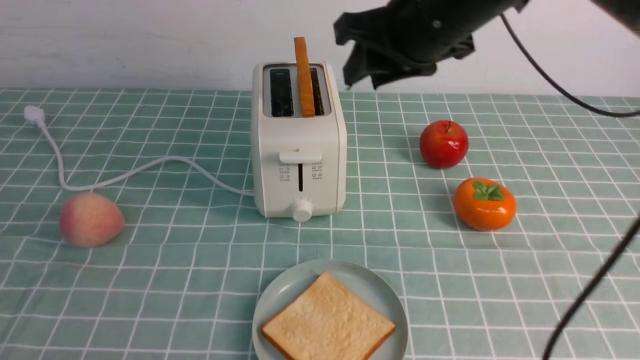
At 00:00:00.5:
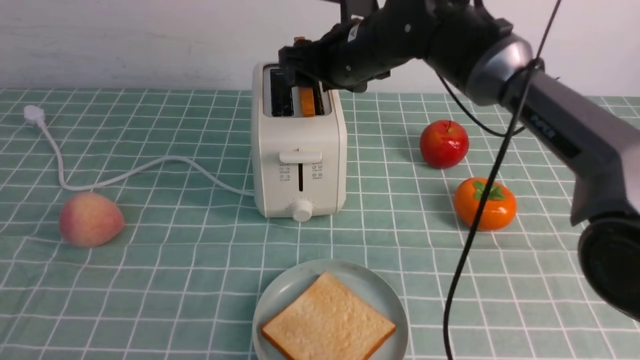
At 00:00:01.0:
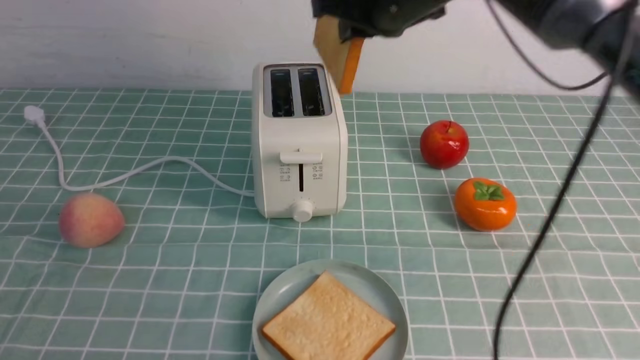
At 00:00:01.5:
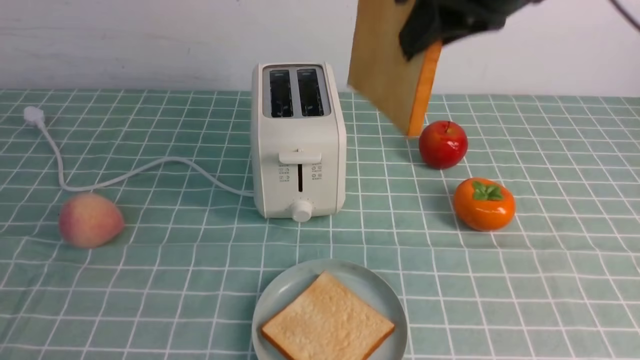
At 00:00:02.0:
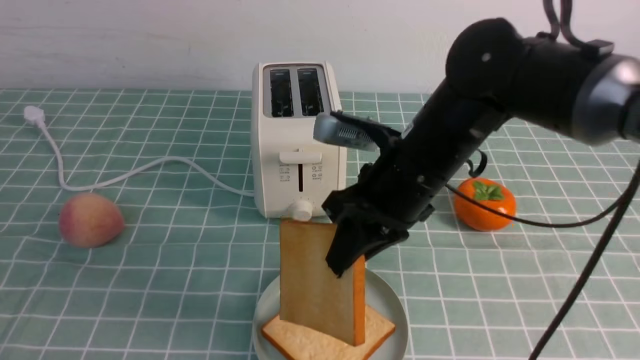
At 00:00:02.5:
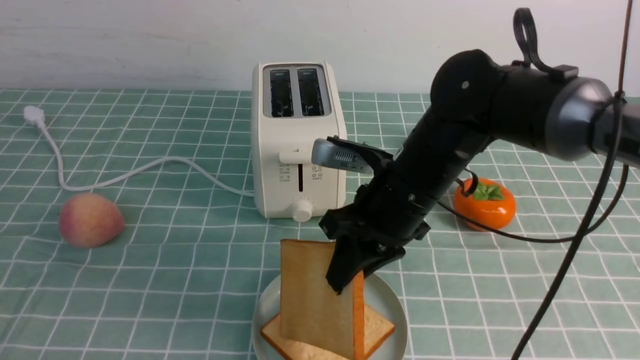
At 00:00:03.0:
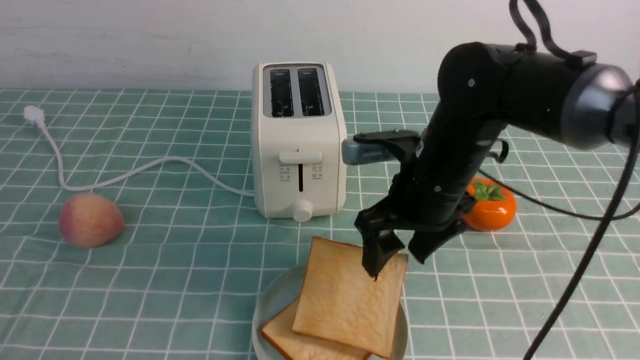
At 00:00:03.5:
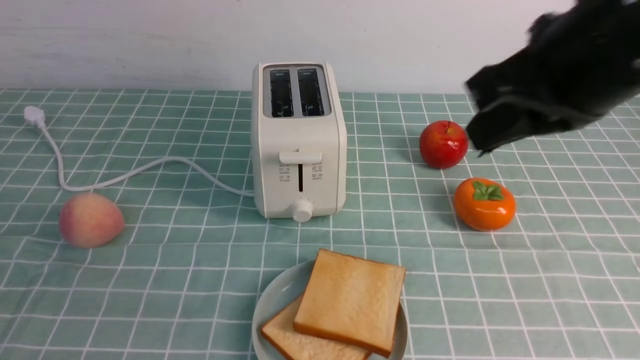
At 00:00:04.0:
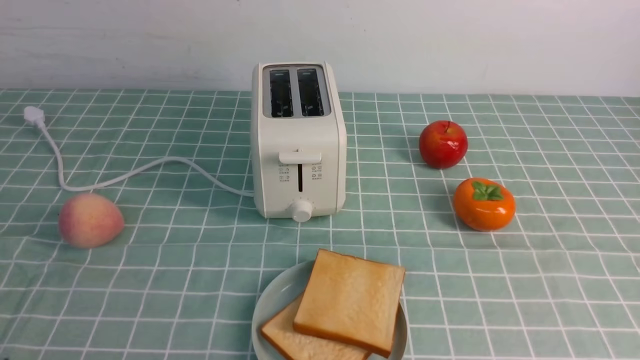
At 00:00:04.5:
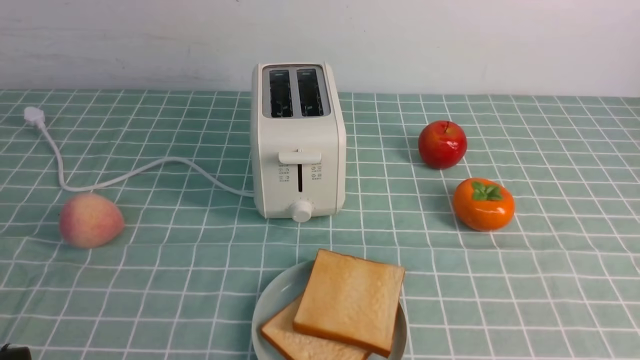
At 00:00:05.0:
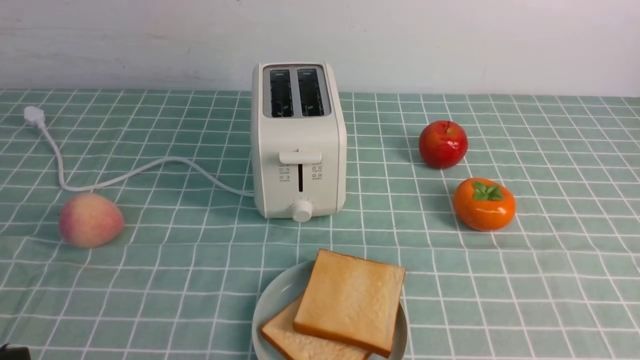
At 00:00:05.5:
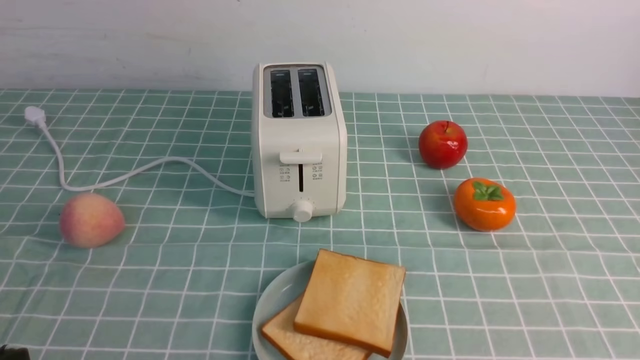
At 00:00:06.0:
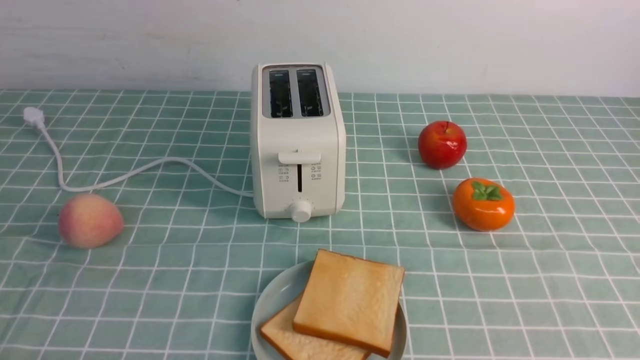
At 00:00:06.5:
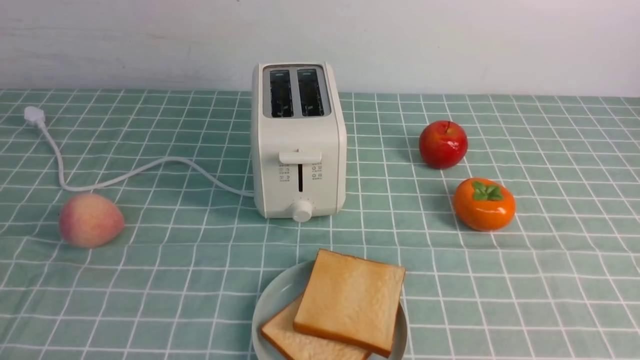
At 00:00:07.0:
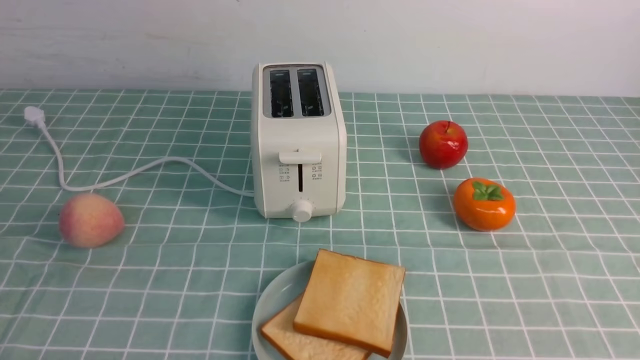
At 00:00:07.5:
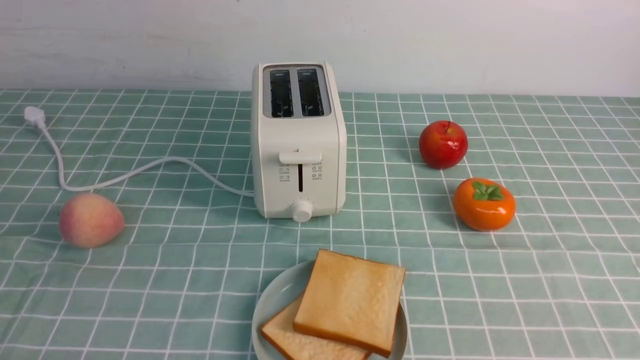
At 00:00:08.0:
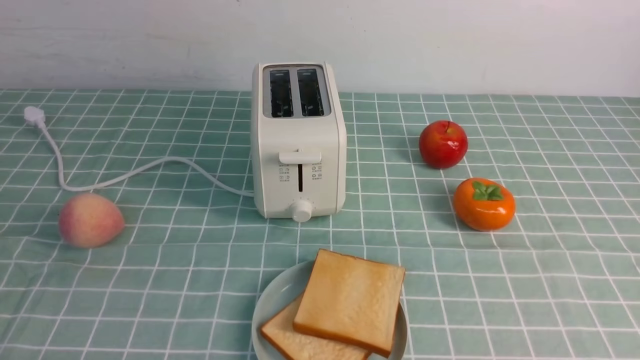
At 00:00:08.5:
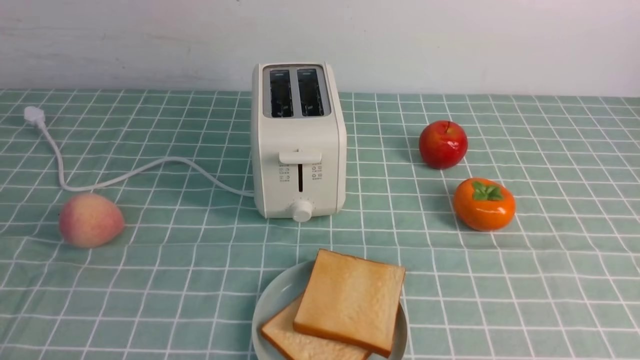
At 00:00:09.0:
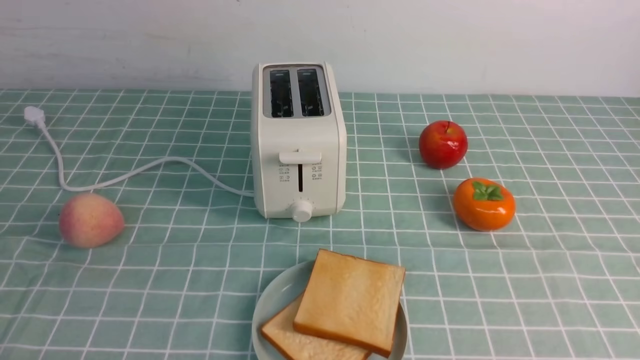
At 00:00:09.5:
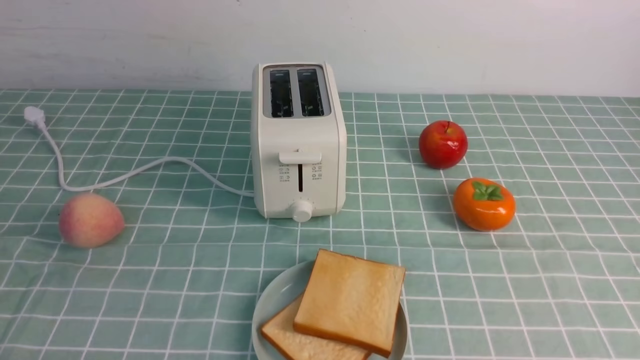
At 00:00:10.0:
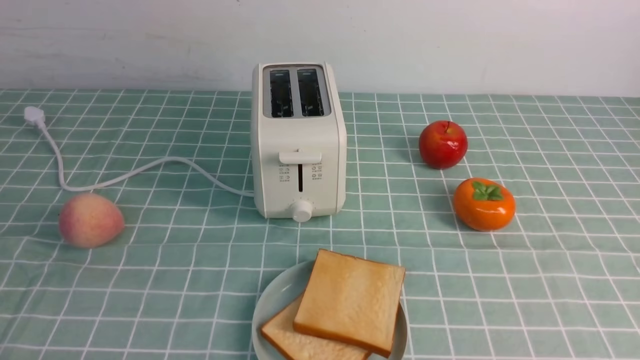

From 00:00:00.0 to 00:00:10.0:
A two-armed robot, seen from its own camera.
Task of the whole recording: take toasted bread from bread machine on blue coffee table place on plate.
Step, from 00:00:01.5 to 00:00:03.0: use the right arm to put a slice of bread into the plate.
From 00:00:00.0 to 00:00:02.0: The right gripper goes up and down, approximately 15 cm each way, reversing 2 times, and closes its fingers.
From 00:00:02.0 to 00:00:04.0: The right gripper travels backward, to the right and upward by roughly 35 cm, and opens, then closes again.
